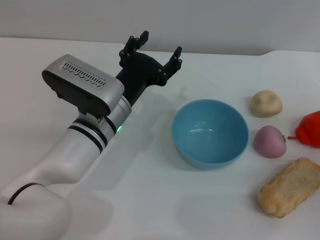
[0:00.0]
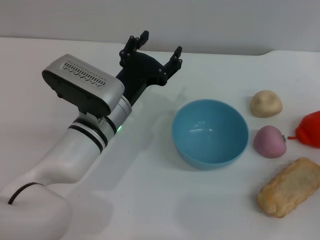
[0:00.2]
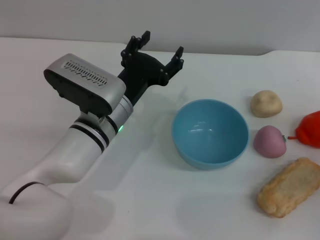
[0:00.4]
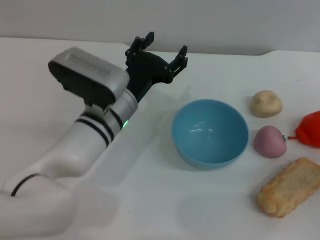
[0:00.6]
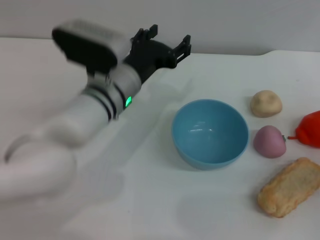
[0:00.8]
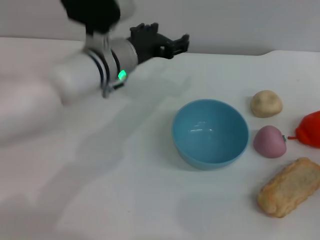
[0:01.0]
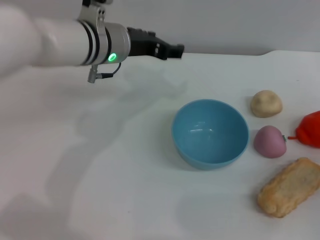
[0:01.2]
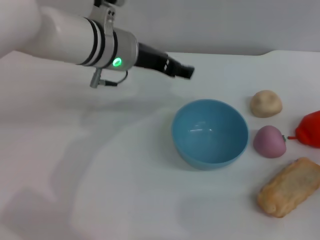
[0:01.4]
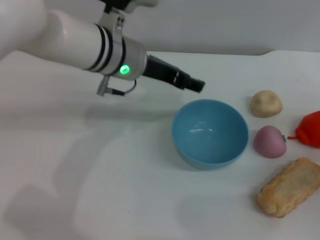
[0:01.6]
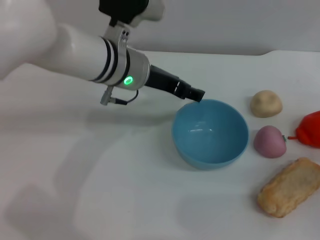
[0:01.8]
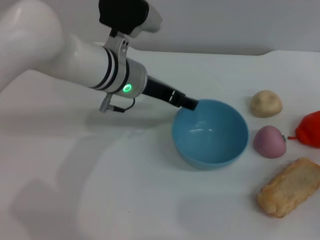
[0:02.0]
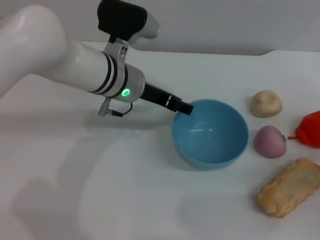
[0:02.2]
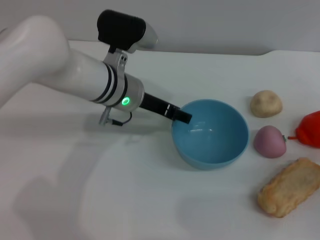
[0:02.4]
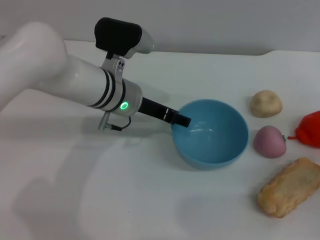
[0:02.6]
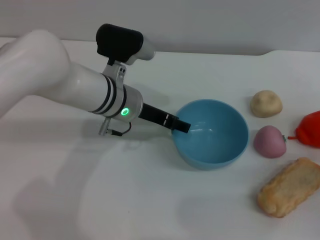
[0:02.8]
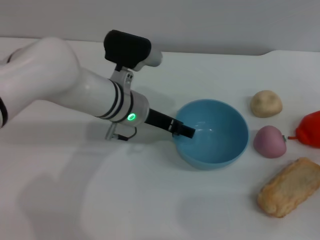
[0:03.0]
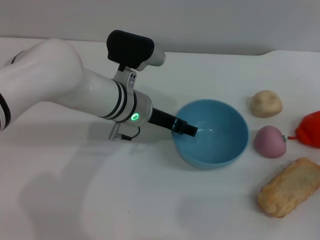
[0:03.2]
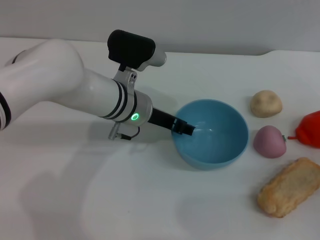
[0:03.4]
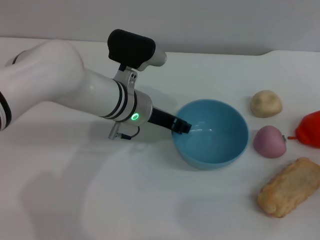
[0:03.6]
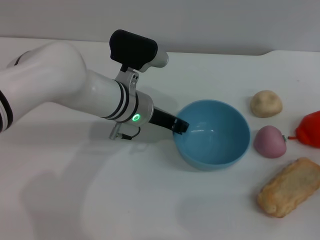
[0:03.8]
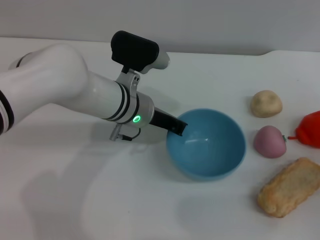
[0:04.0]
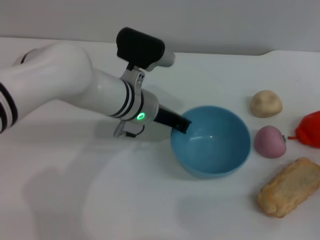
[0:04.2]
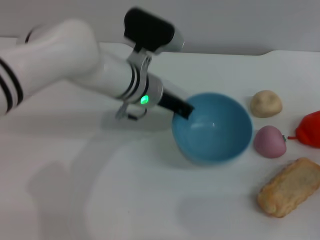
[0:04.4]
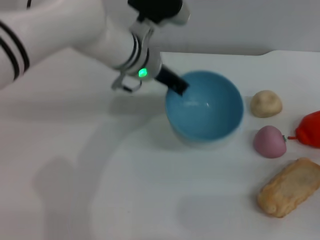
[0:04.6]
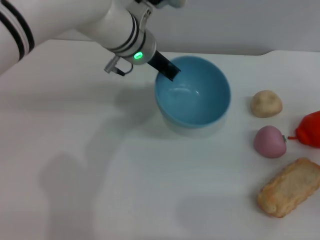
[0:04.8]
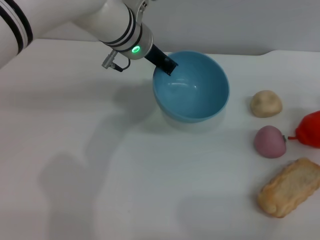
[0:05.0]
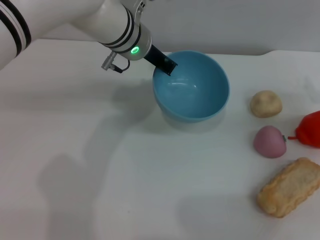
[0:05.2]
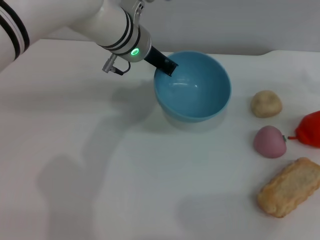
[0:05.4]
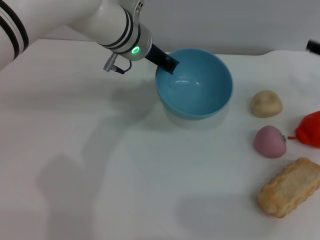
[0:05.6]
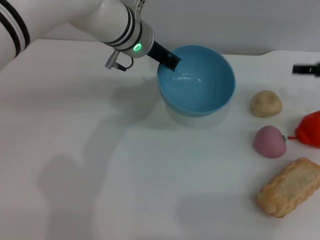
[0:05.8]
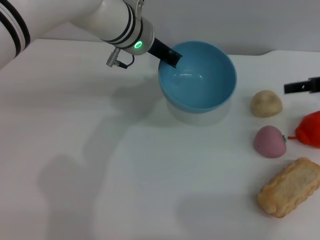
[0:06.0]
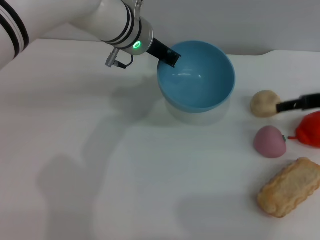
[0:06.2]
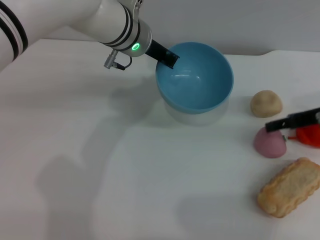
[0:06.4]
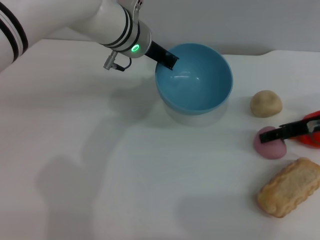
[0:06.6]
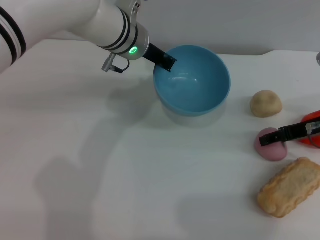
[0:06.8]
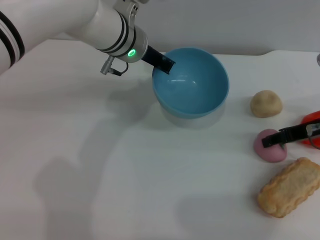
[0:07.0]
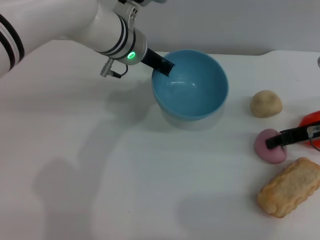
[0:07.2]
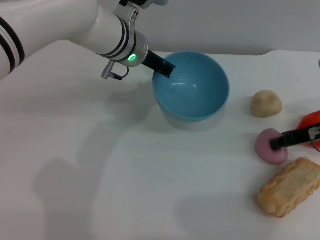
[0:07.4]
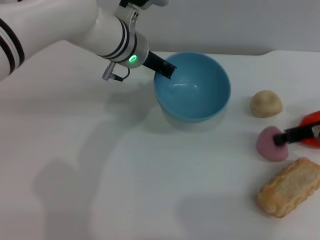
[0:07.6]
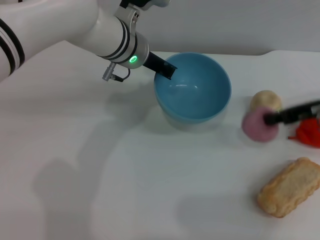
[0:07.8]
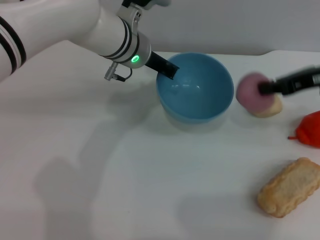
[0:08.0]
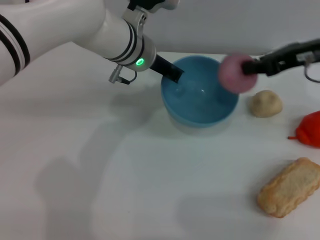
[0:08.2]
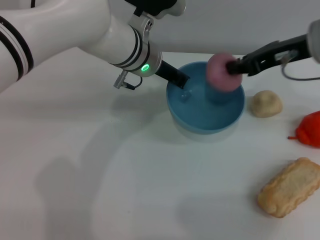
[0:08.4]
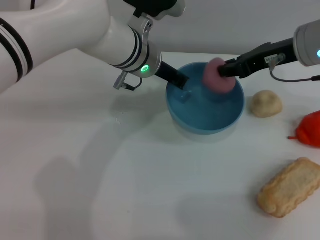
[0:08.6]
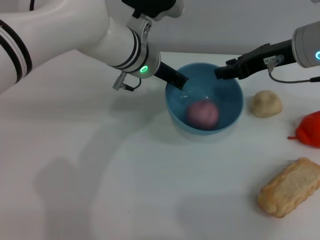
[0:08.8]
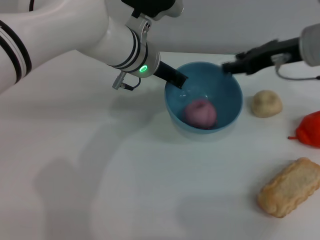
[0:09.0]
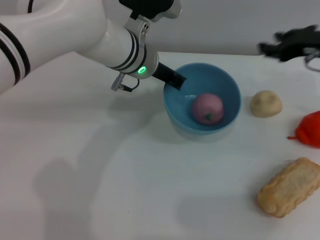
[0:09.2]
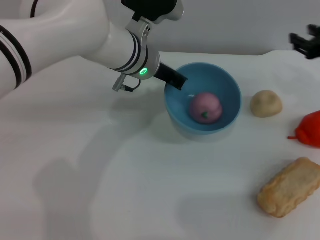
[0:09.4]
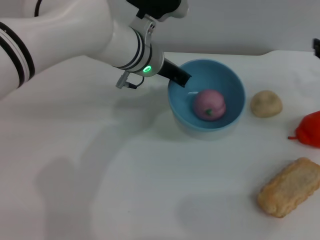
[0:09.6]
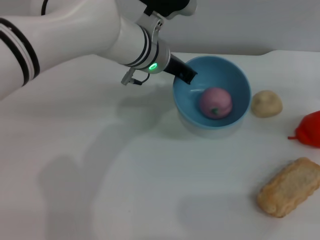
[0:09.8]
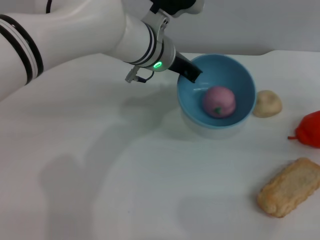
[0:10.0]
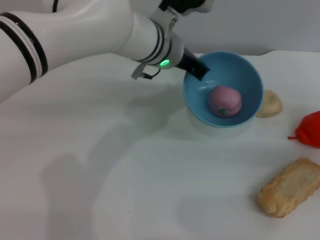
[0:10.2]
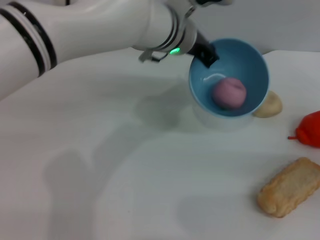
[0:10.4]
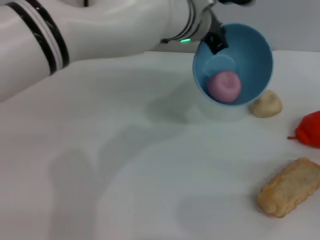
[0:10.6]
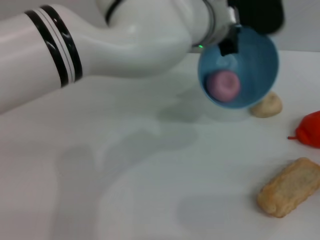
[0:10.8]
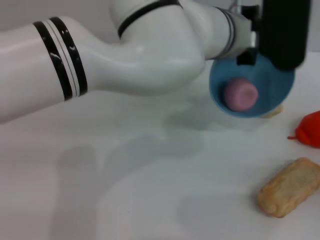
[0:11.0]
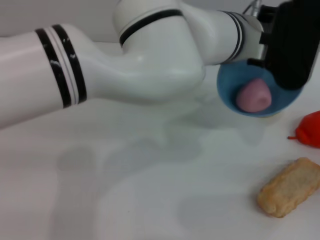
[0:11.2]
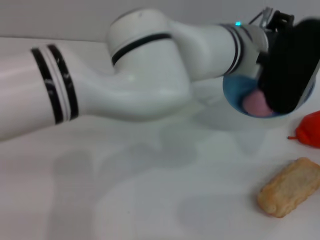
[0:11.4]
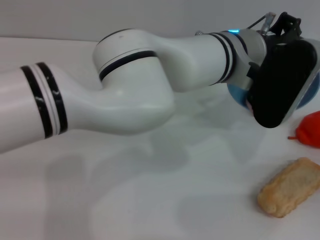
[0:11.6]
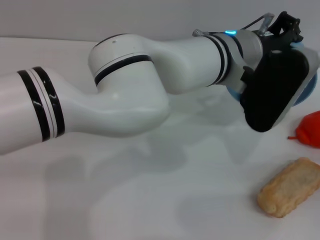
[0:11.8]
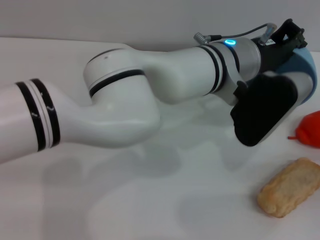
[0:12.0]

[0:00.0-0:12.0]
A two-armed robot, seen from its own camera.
Task of the whole recording: put the peach into the blue bowl and pour it out repeatedly.
Step, 0:00.0 to 0:04.6: Pick up the bowl with the left gripper.
Step, 0:05.0 to 0:07.6: Pick up the peach with the right gripper.
Step, 0:08.0 to 0:09.0: Place the peach into the bowl.
0:00.0 to 0:01.6: The left gripper is displaced upward and forward by about 15 cm.
0:01.6 to 0:03.0: The left gripper is displaced downward by some 10 cm.
0:03.0 to 0:04.4: The left gripper closes up.
0:04.4 to 0:06.0: The left gripper shifts approximately 5 cm upward. Meanwhile the right gripper moves upward and forward, approximately 20 cm.
0:06.0 to 0:07.6: The right gripper shifts by about 5 cm, and closes its fingers.
0:07.6 to 0:09.0: The right gripper moves upward and to the left, roughly 10 cm.
0:09.0 to 0:10.4: The right gripper travels to the right, downward and backward by roughly 25 cm. Meanwhile the left gripper moves to the right, about 5 cm.
0:10.4 to 0:12.0: The left gripper travels backward and to the right by some 10 cm.

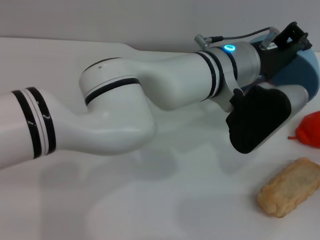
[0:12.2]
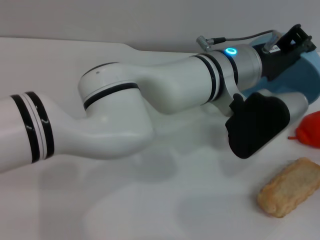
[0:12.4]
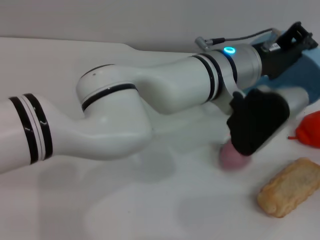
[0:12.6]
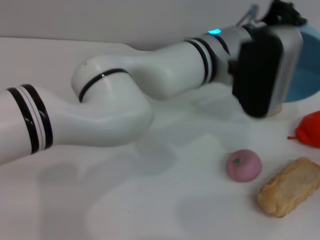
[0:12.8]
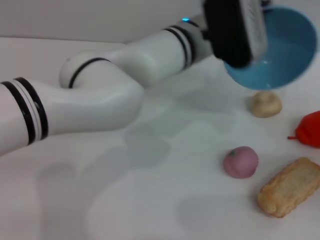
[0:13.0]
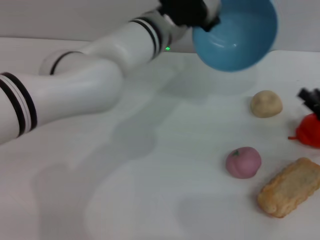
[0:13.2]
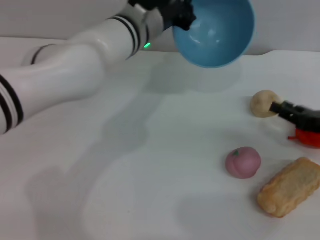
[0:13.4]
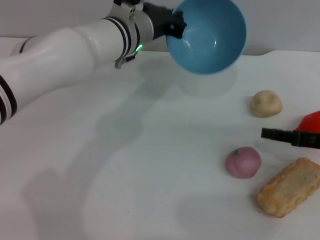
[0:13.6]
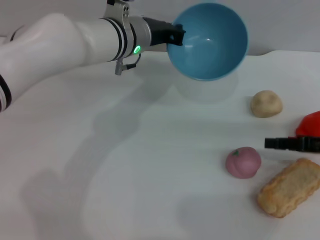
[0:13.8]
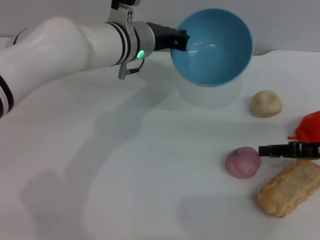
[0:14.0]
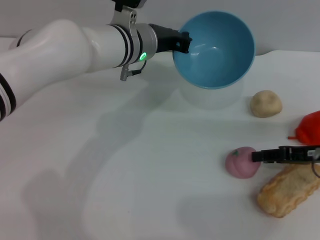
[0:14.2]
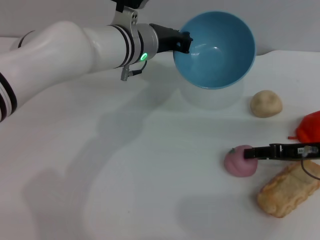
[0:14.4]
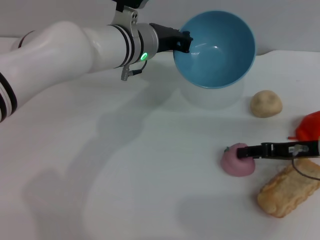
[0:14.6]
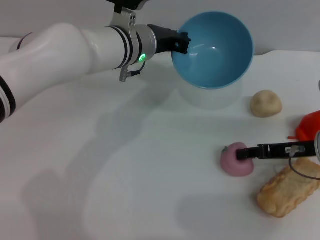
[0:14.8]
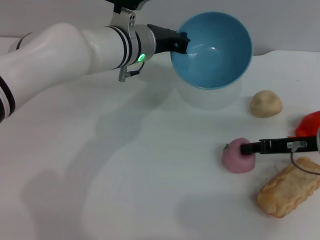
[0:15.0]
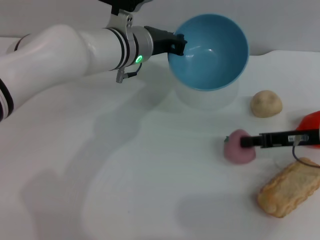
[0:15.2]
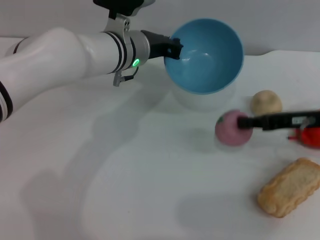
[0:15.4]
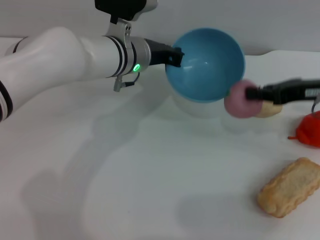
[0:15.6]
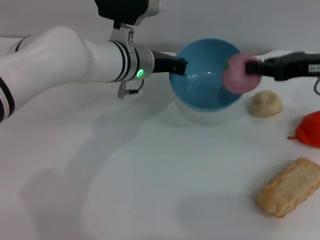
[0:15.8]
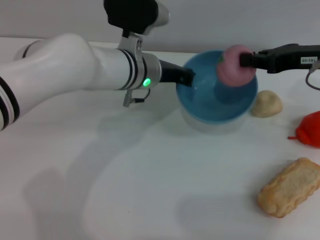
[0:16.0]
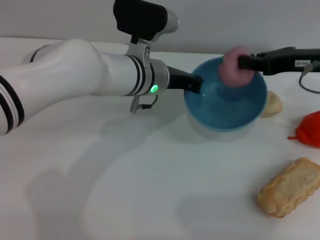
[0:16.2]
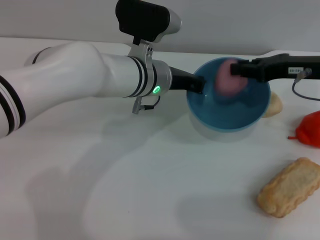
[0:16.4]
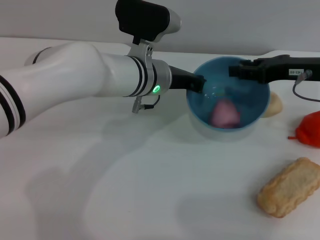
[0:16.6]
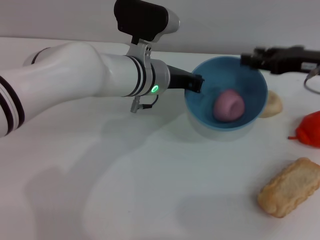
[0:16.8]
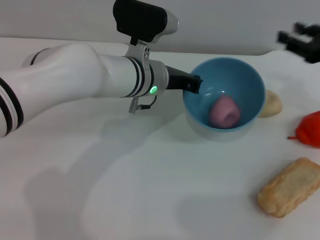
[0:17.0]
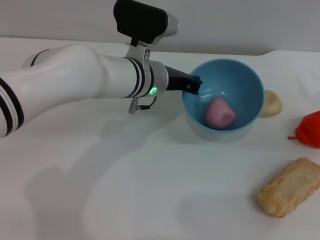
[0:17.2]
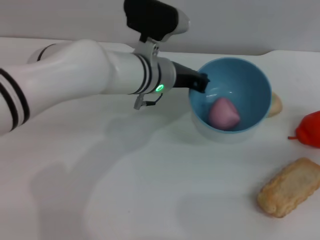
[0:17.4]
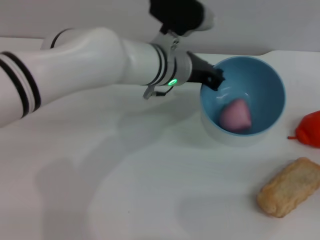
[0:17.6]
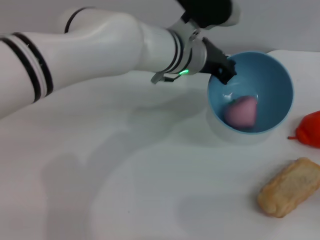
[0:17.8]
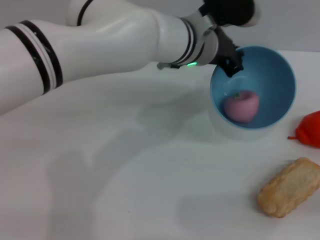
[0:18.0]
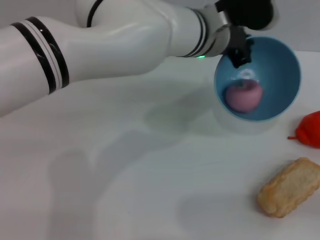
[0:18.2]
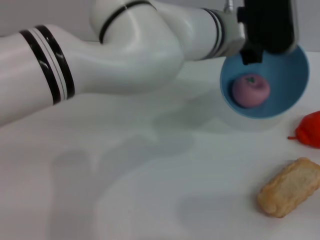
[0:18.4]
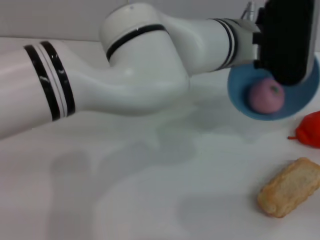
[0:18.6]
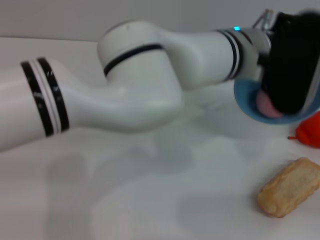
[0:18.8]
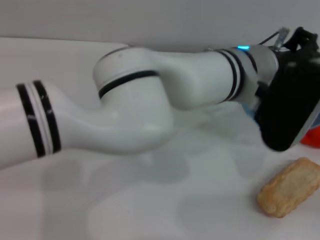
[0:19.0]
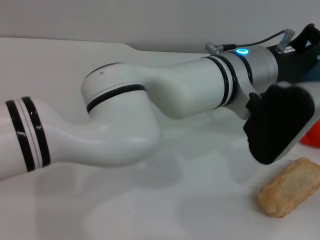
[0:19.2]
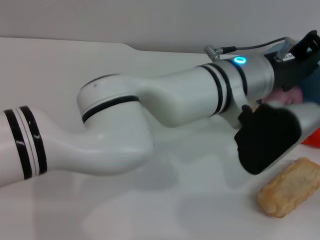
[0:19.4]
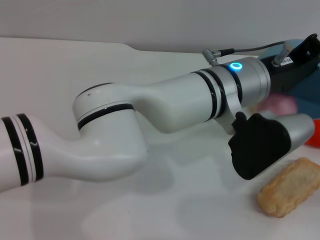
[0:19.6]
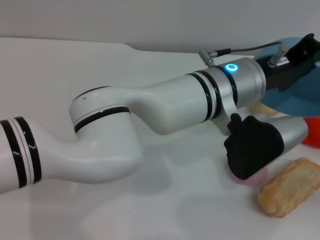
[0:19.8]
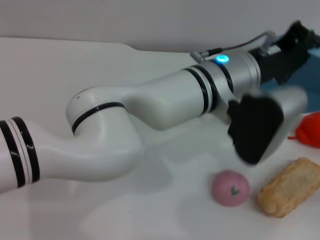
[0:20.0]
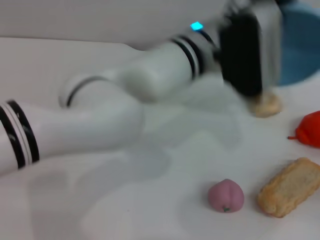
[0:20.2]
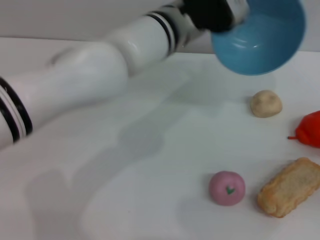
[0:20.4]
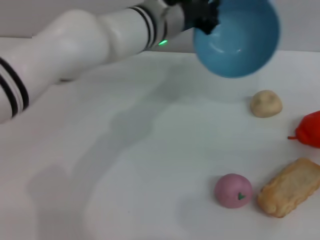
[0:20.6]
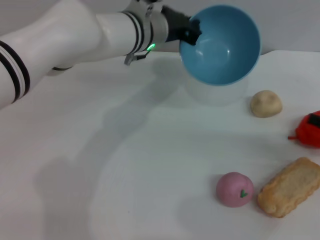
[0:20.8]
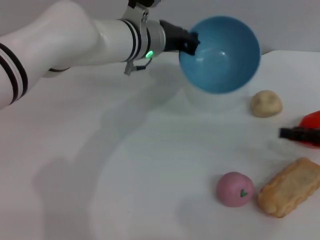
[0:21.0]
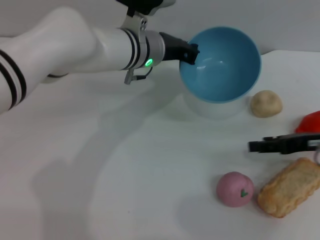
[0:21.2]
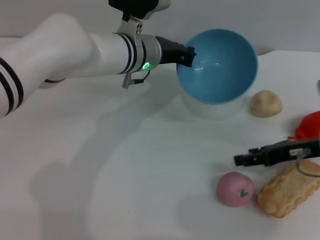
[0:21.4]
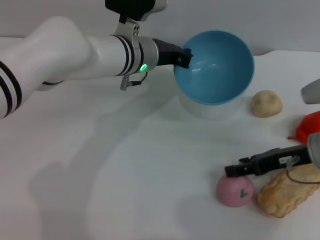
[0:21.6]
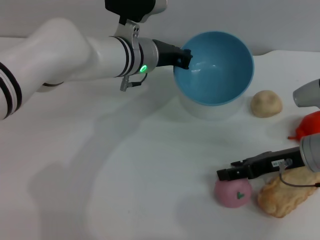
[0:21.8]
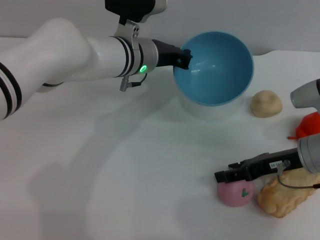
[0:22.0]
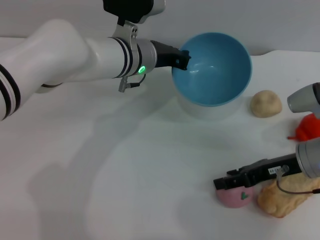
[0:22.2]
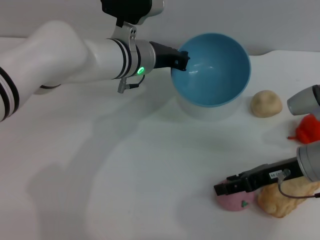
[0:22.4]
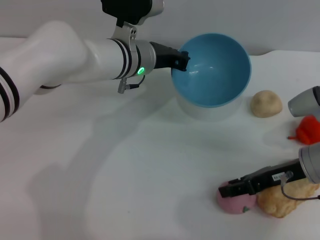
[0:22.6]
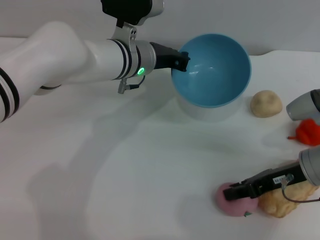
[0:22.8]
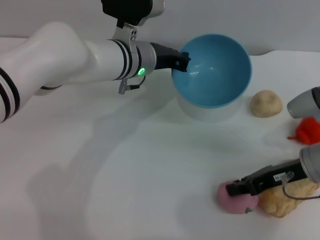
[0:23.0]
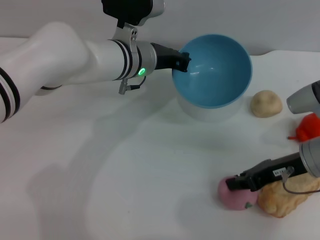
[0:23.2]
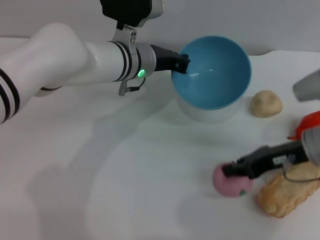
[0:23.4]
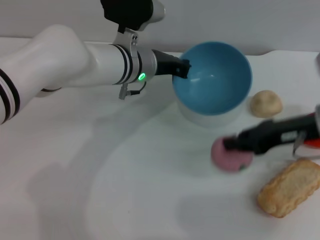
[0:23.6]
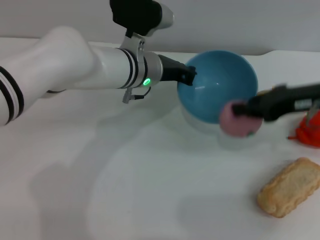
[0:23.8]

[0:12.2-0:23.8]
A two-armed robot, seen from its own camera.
Task of the whole recording: put the peach into the blue bowl and pour it out repeatedly.
Step, 0:13.0 to 0:15.6: Pick up the peach with the right gripper.
Step, 0:15.8 to 0:17.0: Place the peach into the bowl.
Step, 0:17.2 to 0:20.2: Pour the peach out of bowl.
Step, 0:20.4 to 0:23.6: Pick up the peach with the right gripper.
0:12.2 to 0:13.6: The left gripper goes approximately 15 cm to the left and forward, while the right gripper shifts some 10 cm to the left and upward.
0:13.6 to 0:15.0: The right gripper shifts by approximately 5 cm.
0:15.0 to 0:16.6: The right gripper heads upward, covering some 10 cm, and closes, then opens again.
0:16.6 to 0:18.0: The right gripper moves to the right, backward and downward, about 25 cm, and opens its fingers; the left gripper travels to the right and upward by some 10 cm.
0:18.0 to 0:19.4: The left gripper travels backward by approximately 10 cm.
0:19.4 to 0:21.0: The right gripper shifts about 15 cm forward, upward and to the left, while the left gripper heads to the left and forward, covering some 15 cm.
0:21.0 to 0:22.4: The right gripper travels to the left by some 10 cm.
0:22.4 to 0:23.8: The right gripper moves upward, approximately 10 cm, and closes up.
